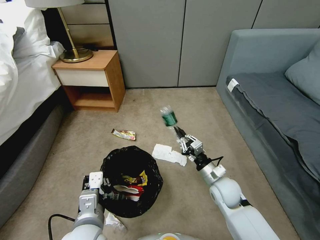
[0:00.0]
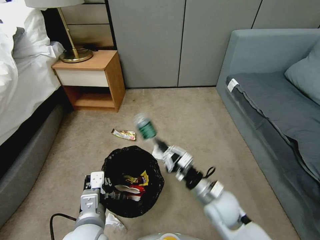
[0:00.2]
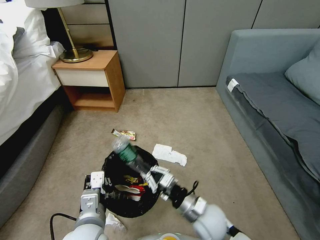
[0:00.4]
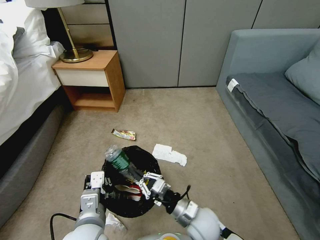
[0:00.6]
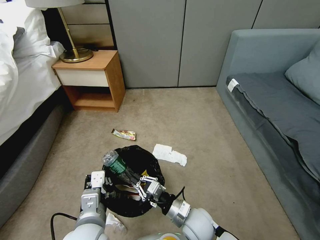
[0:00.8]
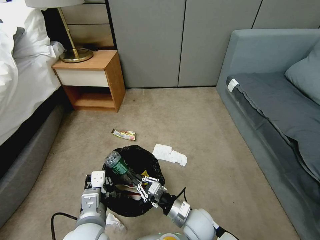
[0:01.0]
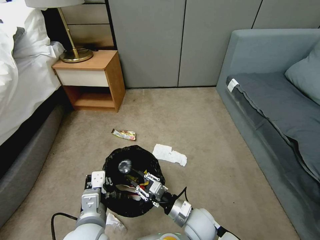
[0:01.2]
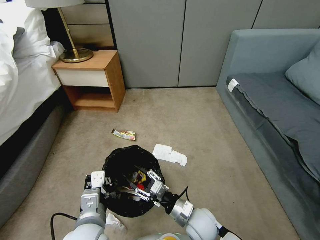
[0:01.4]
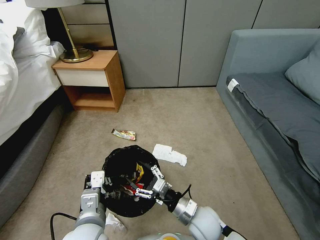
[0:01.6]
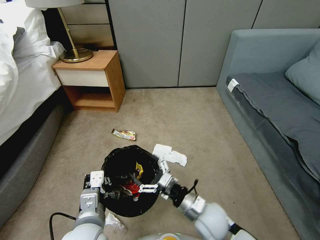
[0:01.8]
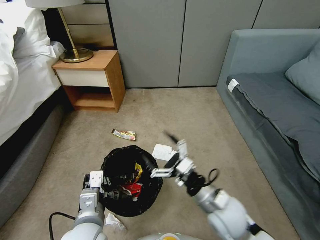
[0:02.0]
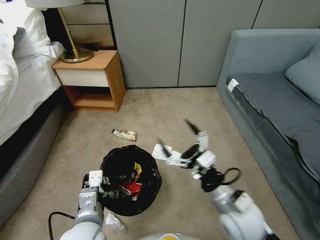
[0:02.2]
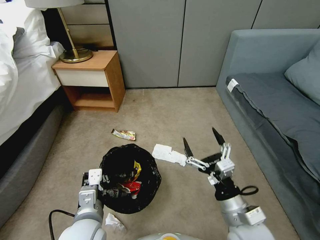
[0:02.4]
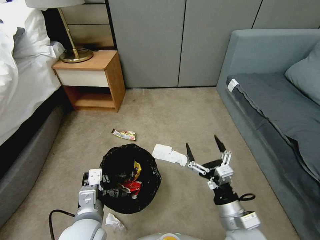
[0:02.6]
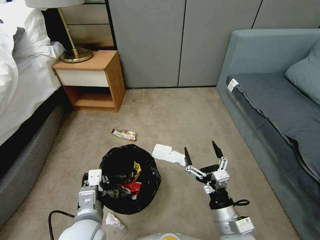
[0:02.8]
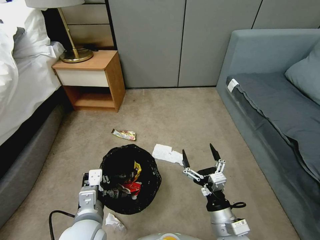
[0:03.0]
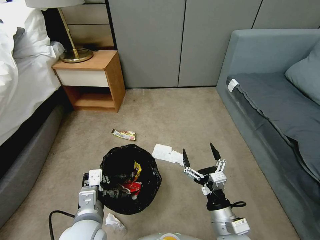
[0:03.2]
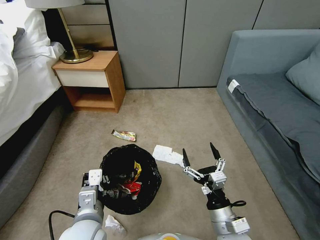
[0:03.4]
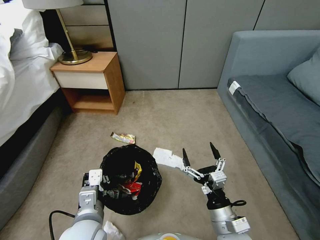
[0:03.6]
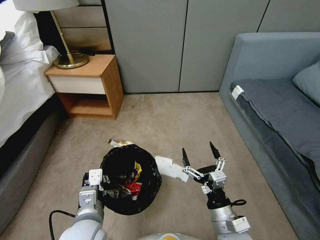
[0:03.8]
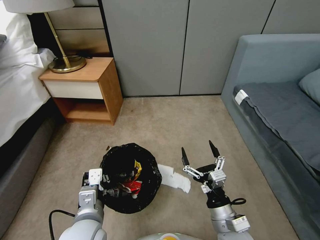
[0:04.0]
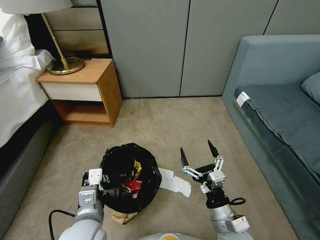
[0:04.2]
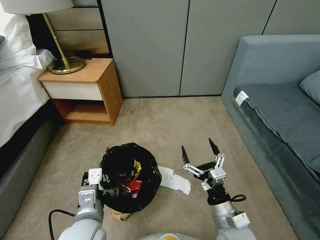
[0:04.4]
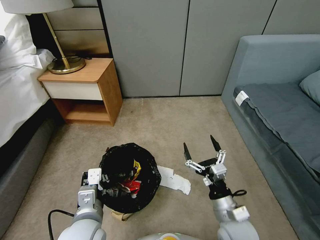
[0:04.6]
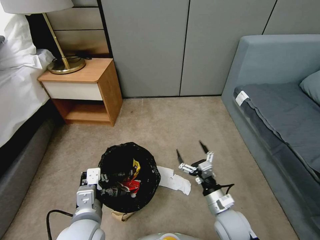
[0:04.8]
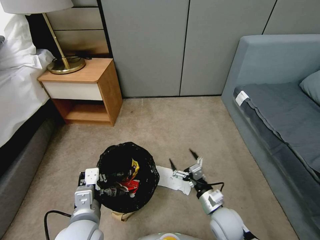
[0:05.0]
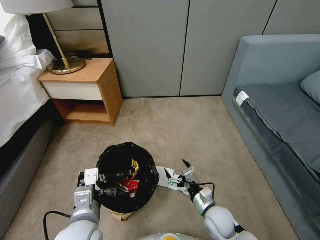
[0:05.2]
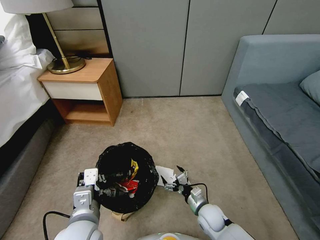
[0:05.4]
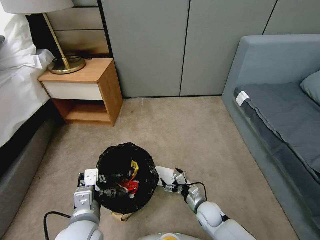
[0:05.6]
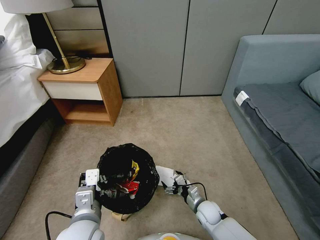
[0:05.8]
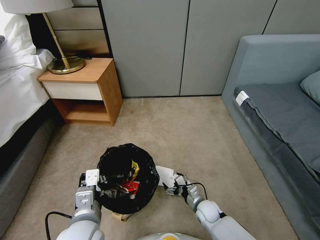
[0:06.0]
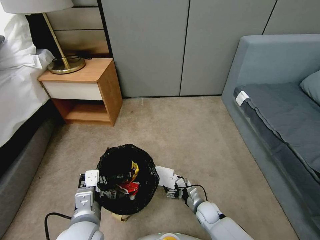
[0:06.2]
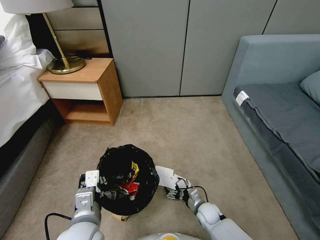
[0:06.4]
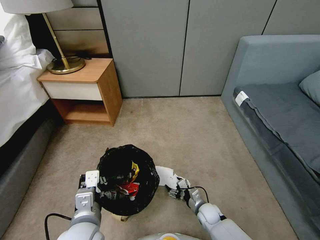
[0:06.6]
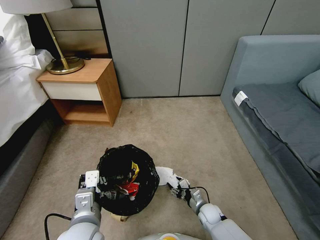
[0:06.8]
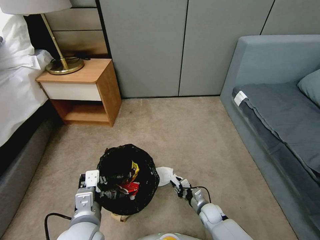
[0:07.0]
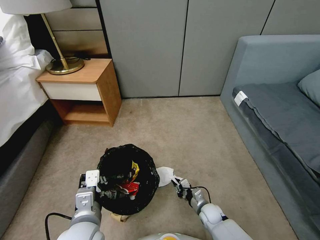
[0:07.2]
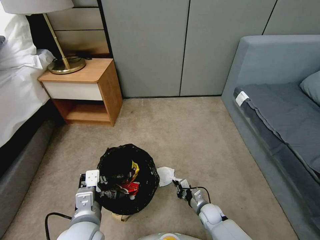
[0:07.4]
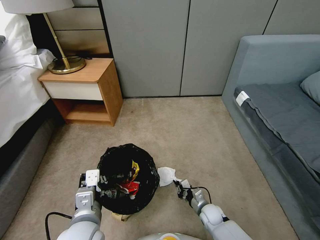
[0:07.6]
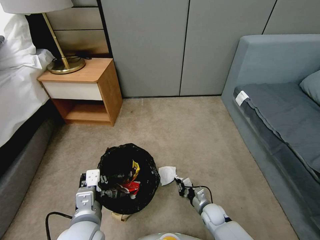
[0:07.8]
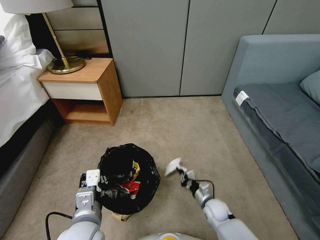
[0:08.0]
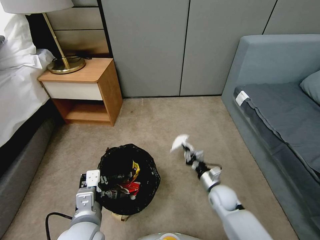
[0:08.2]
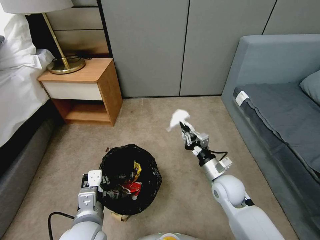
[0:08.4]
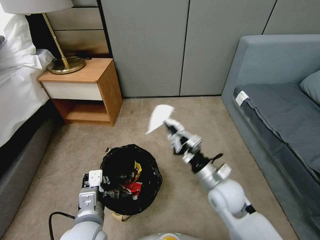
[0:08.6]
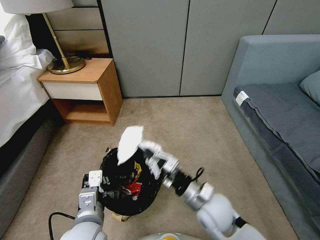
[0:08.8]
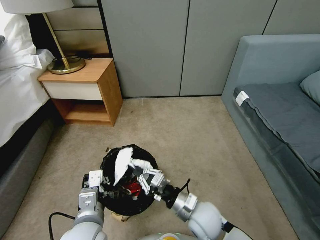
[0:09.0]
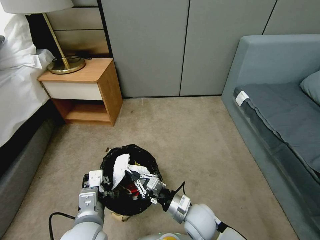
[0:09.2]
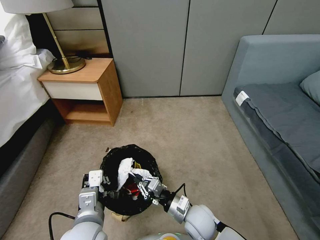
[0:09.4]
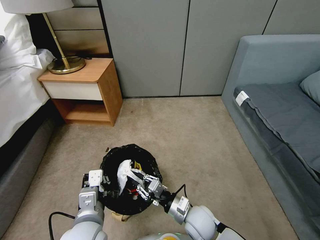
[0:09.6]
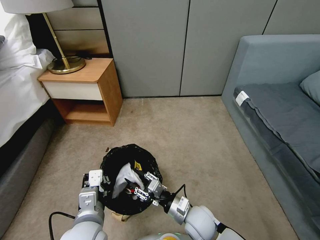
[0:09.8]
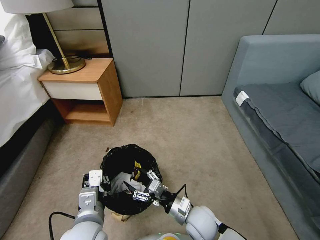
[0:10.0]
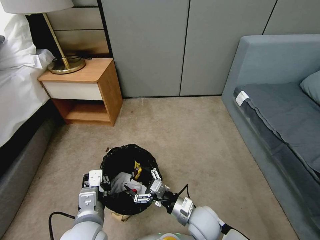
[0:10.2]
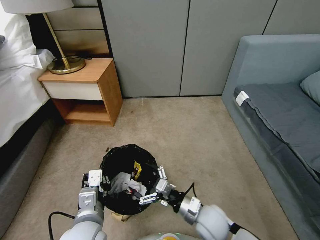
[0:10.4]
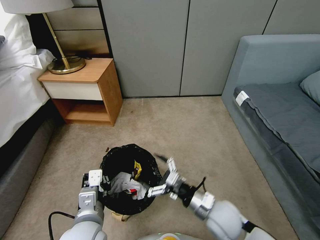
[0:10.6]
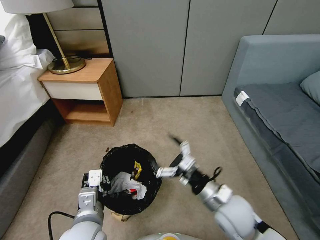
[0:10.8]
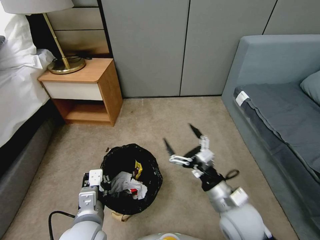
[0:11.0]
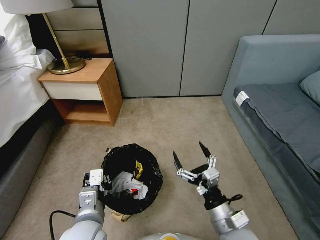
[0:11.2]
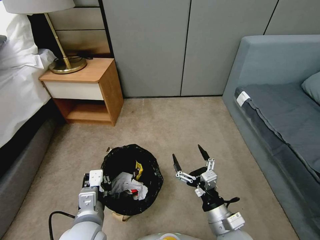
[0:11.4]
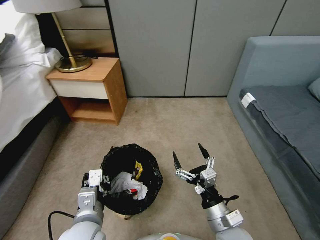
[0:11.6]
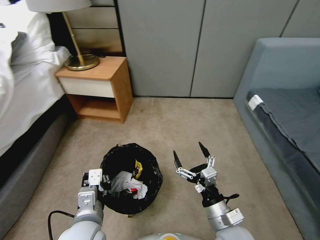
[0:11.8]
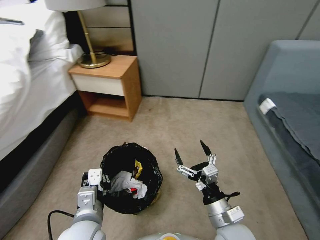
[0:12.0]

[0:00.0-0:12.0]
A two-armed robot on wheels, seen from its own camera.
Task of the whole recording: Pick up the trash bin, then pick up the garbage from the floor and place it into the trash bin.
0:00.0 to 0:01.6: The right gripper is displaced to the left and backward by about 10 cm, and opens its fingers.
0:01.6 to 0:03.0: The right gripper is displaced backward, to the right and upward by approximately 10 cm.
0:04.4 to 0:06.0: The right gripper heads downward and forward, covering roughly 25 cm.
0:06.0 to 0:07.6: The right gripper closes its fingers.
0:07.6 to 0:09.0: The right gripper goes about 25 cm upward.
0:09.0 to 0:10.4: The right gripper opens its fingers.
0:10.4 to 0:12.0: The right gripper is displaced backward by some 5 cm.

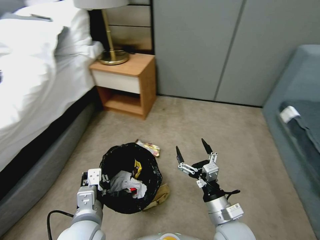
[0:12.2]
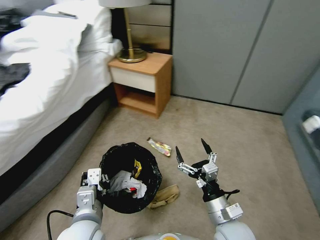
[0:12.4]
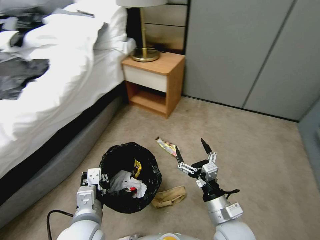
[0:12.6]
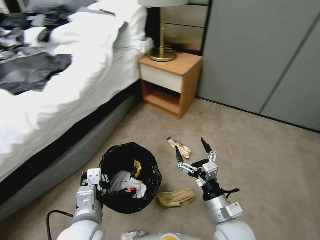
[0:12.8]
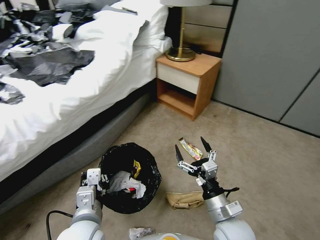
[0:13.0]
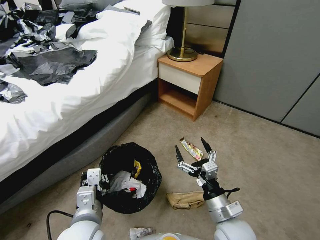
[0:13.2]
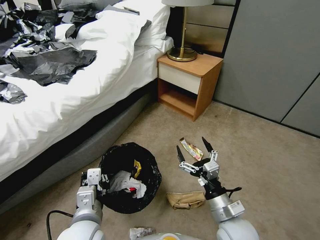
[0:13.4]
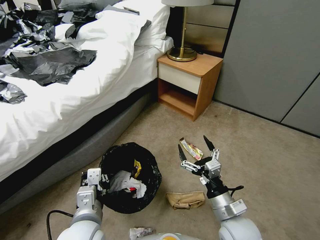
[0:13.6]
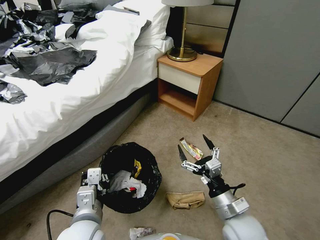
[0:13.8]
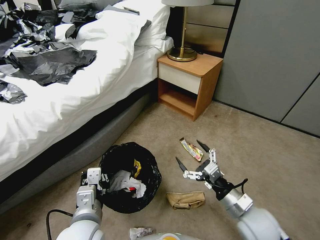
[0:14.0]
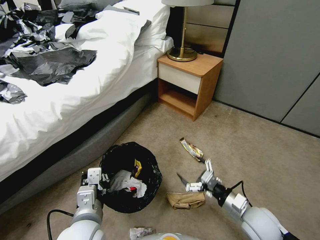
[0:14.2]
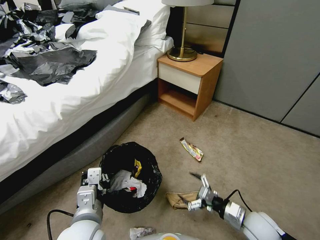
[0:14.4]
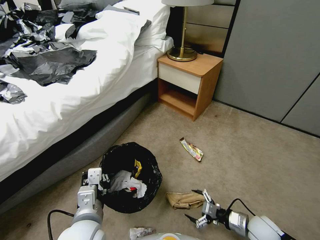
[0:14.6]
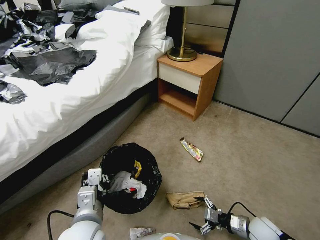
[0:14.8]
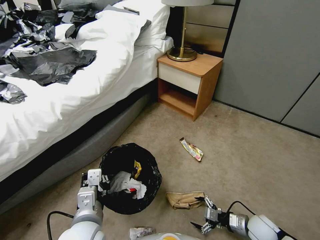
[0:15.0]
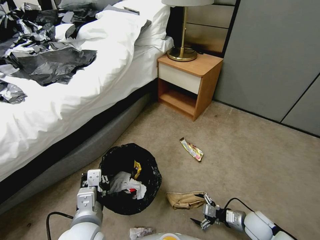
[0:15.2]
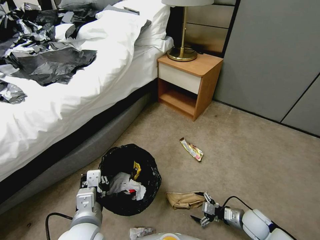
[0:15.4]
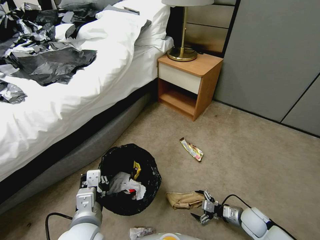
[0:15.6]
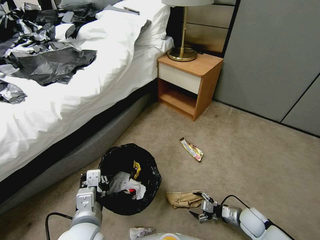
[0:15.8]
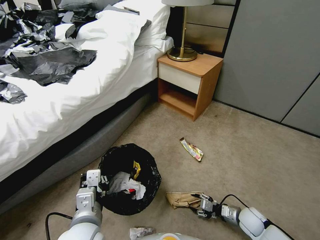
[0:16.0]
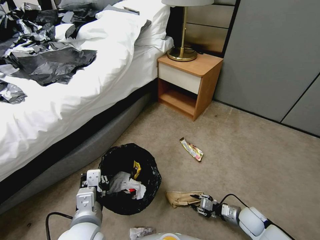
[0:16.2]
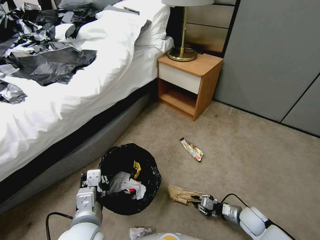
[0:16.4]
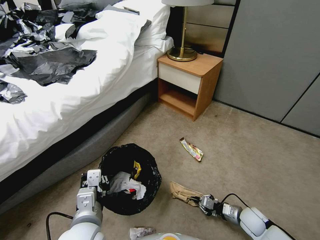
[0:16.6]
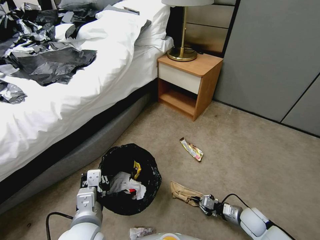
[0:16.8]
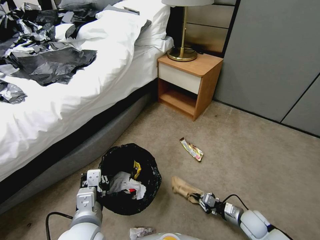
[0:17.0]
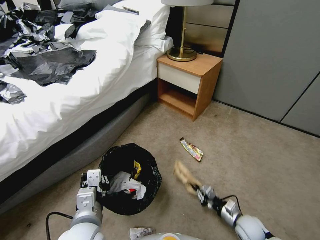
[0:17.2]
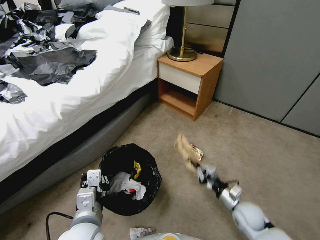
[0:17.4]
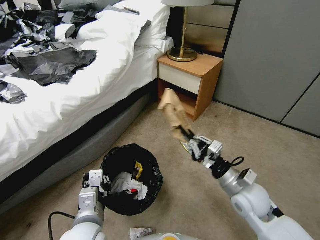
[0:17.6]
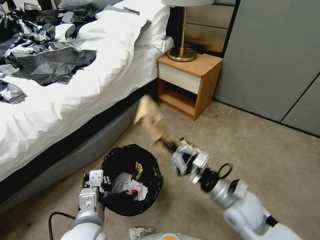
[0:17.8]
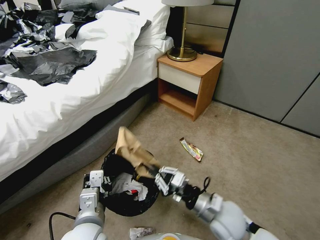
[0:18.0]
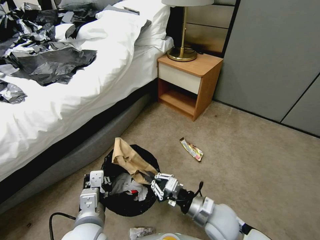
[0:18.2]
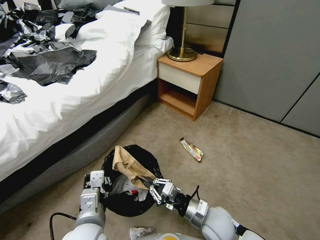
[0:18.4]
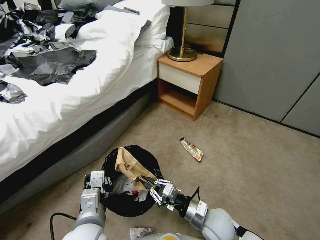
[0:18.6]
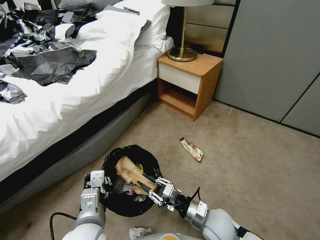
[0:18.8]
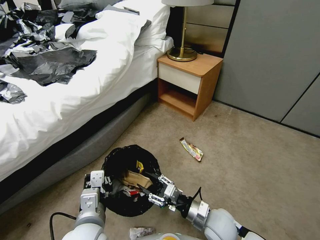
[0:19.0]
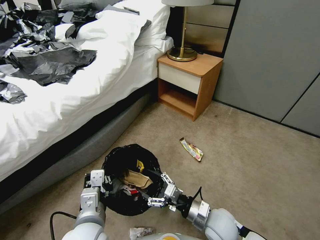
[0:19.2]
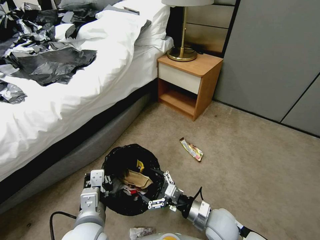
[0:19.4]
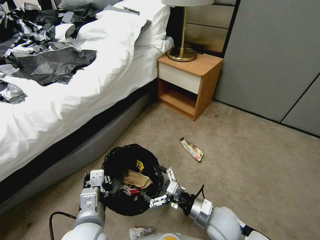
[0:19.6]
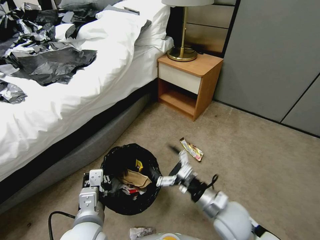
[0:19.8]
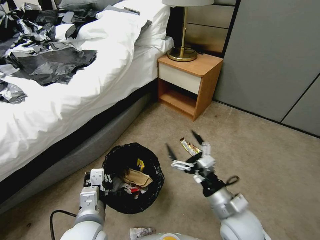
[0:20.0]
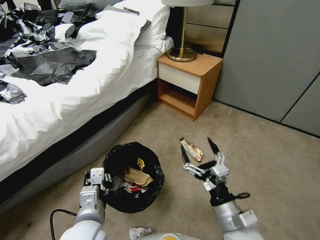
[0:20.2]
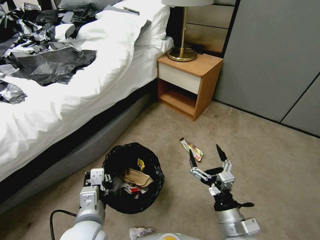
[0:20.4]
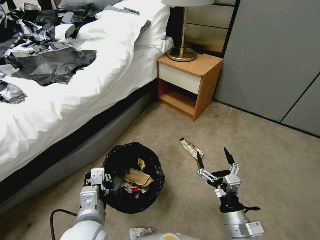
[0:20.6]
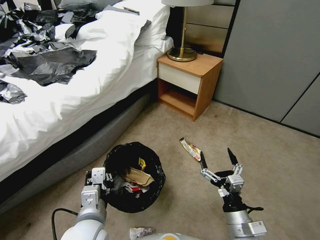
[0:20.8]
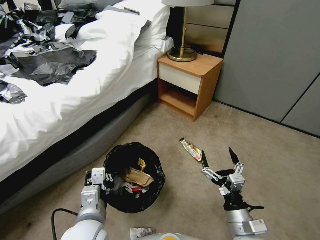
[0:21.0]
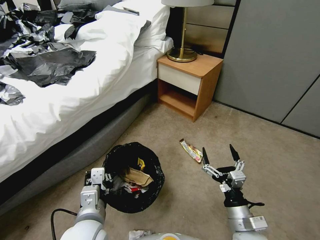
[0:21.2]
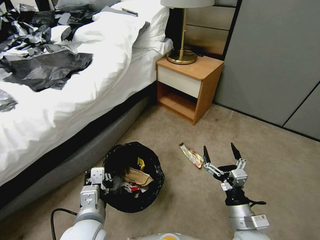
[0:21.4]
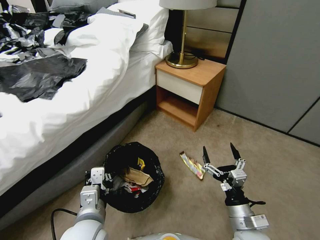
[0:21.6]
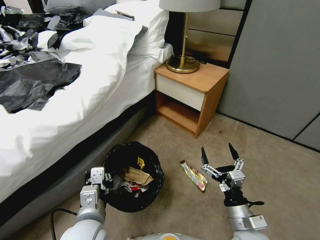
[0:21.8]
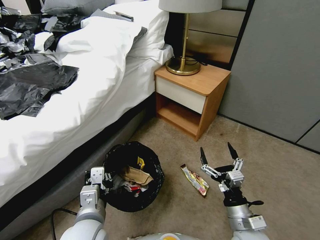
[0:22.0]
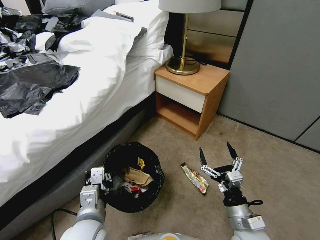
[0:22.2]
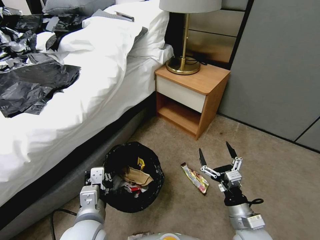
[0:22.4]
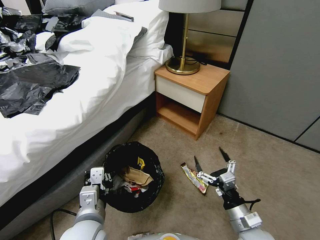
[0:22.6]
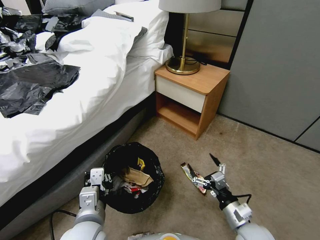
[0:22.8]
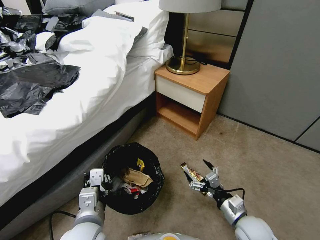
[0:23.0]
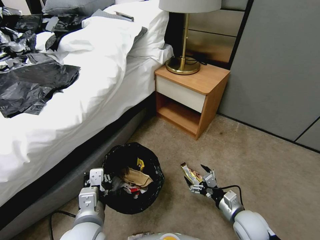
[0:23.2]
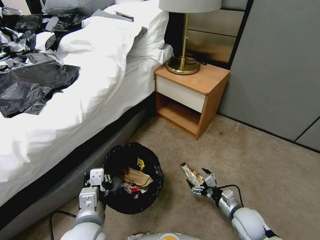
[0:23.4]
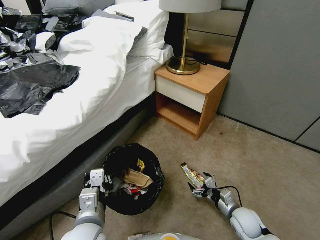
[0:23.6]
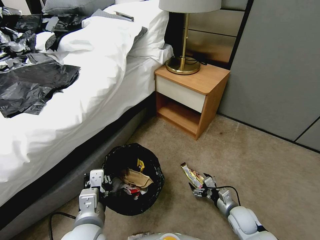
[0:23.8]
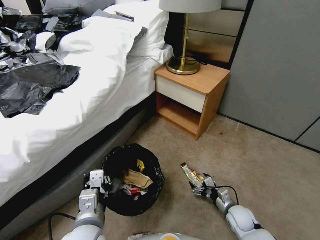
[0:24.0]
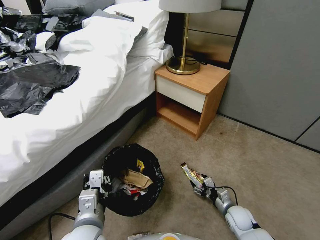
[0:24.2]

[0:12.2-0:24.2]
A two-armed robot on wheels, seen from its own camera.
Task of the whole recording: Pick up the trash bin, then pick up the garbage from the floor and place it into the trash bin.
0:13.8 to 0:15.2: The right gripper moves downward and to the right, approximately 25 cm.
0:15.2 to 0:16.6: The right gripper closes up.
0:16.6 to 0:18.2: The right gripper moves to the left and upward, roughly 25 cm.
0:18.2 to 0:19.8: The right gripper opens.
0:19.8 to 0:21.2: The right gripper heads backward, covering roughly 5 cm.
0:22.6 to 0:24.2: The right gripper shifts approximately 20 cm downward and forward.
